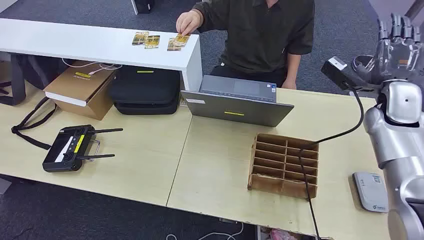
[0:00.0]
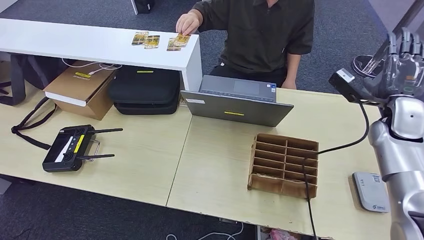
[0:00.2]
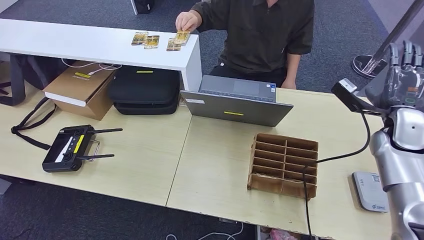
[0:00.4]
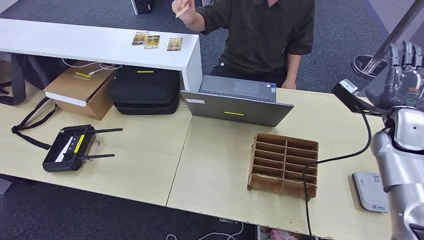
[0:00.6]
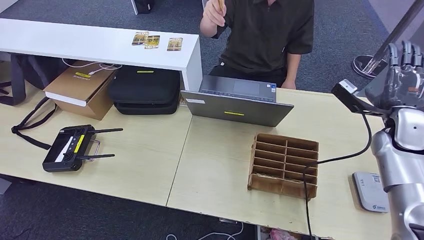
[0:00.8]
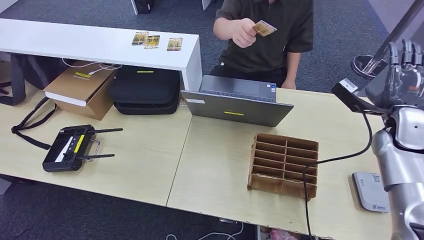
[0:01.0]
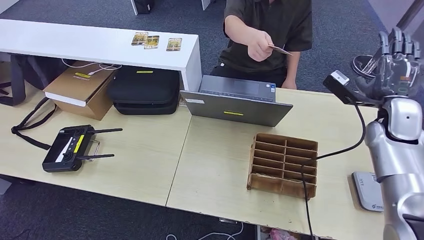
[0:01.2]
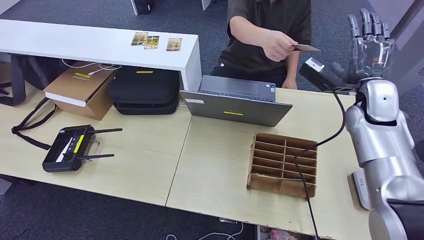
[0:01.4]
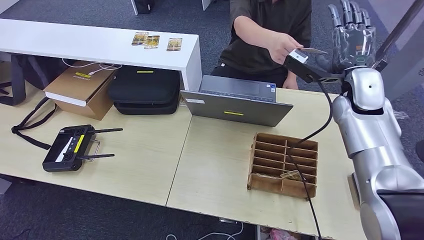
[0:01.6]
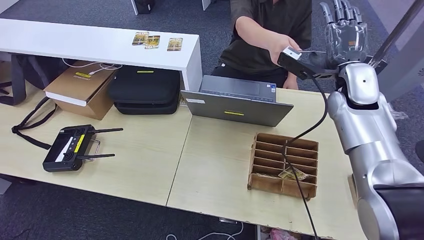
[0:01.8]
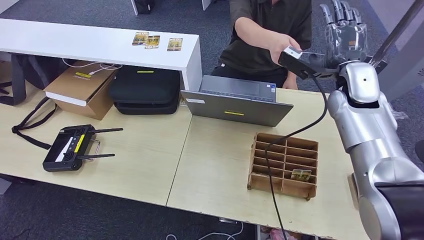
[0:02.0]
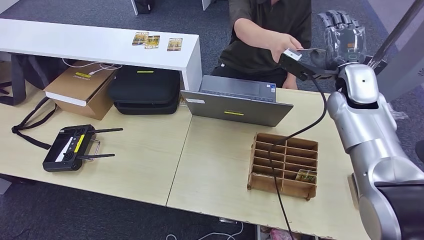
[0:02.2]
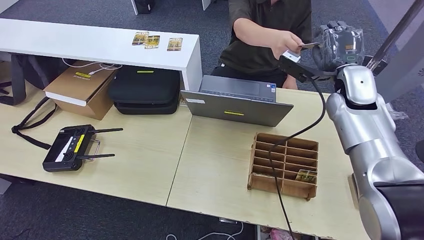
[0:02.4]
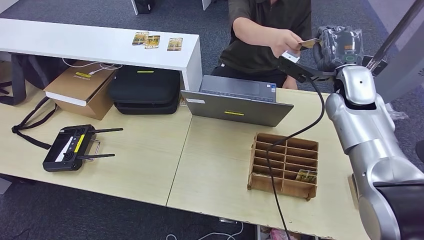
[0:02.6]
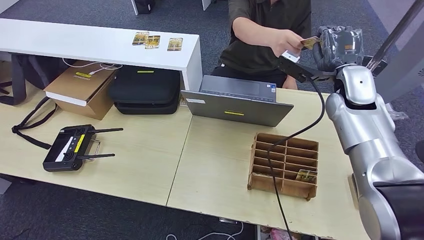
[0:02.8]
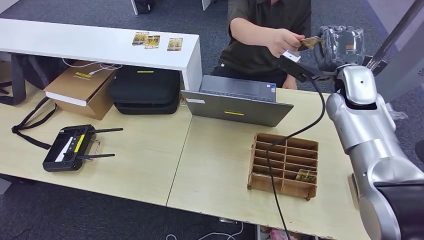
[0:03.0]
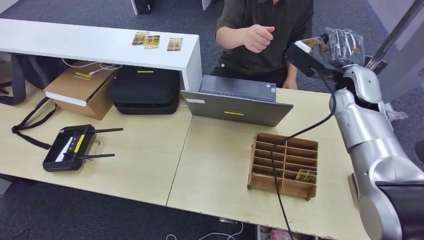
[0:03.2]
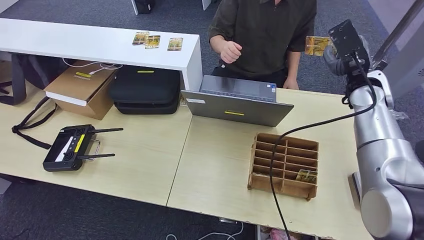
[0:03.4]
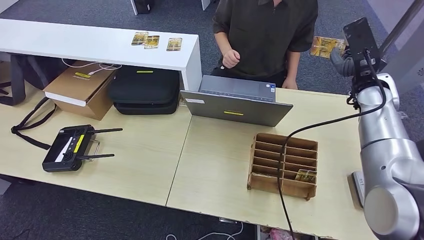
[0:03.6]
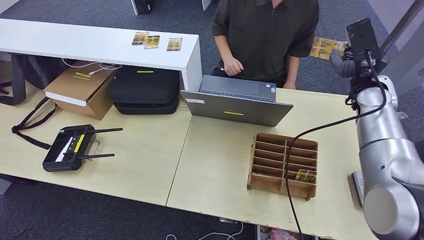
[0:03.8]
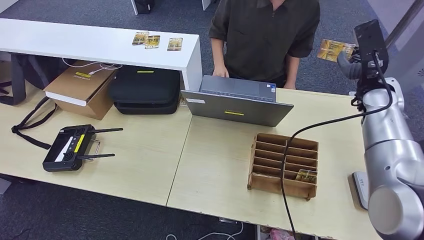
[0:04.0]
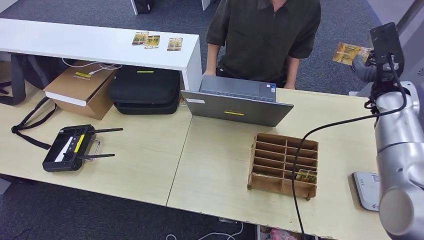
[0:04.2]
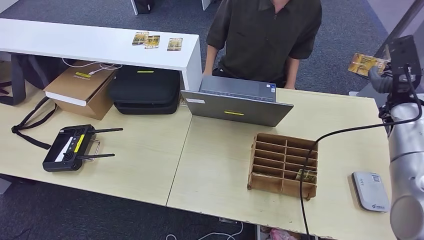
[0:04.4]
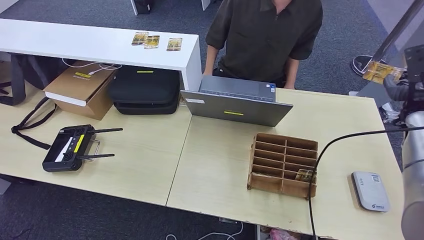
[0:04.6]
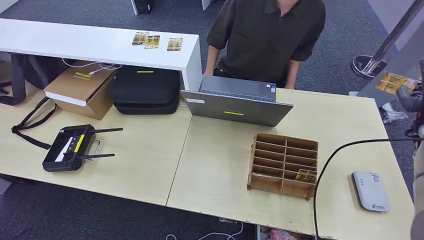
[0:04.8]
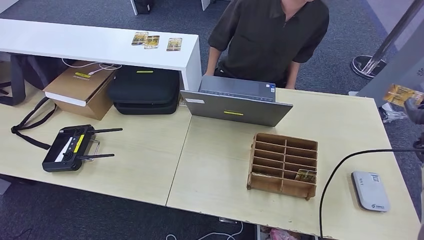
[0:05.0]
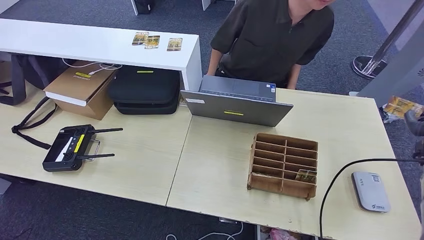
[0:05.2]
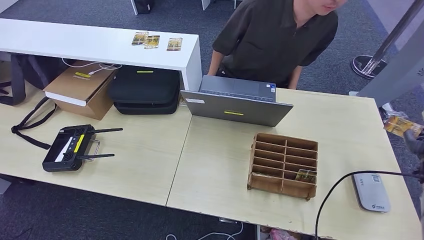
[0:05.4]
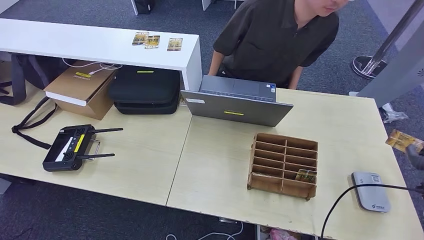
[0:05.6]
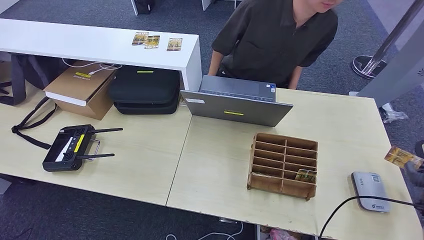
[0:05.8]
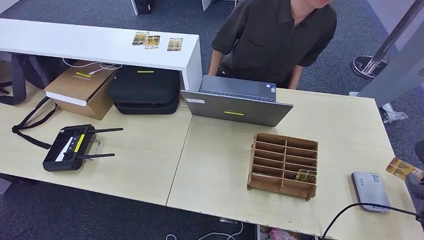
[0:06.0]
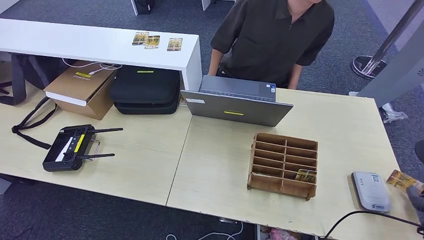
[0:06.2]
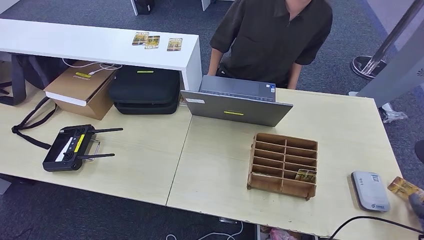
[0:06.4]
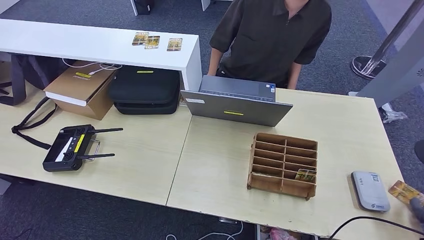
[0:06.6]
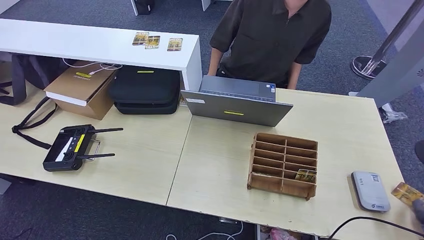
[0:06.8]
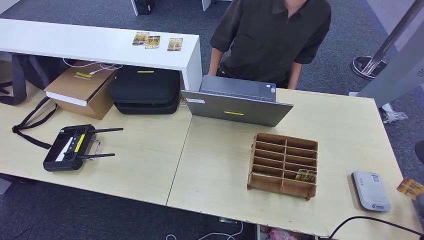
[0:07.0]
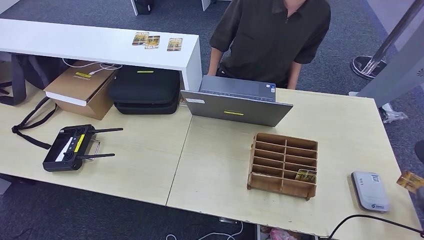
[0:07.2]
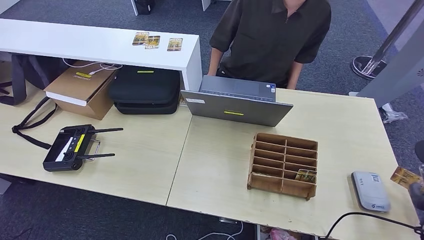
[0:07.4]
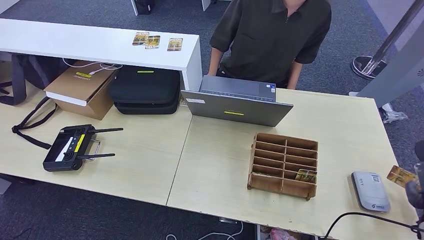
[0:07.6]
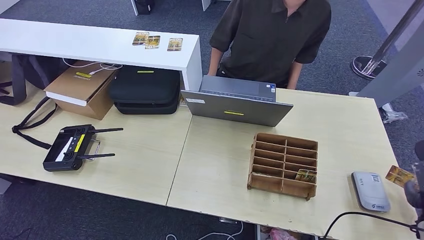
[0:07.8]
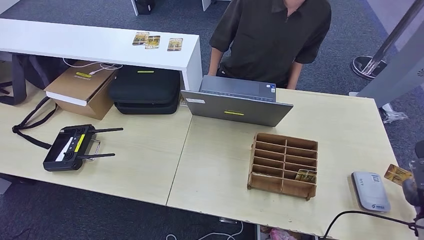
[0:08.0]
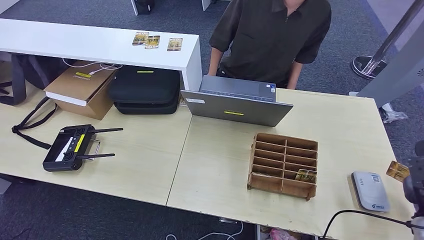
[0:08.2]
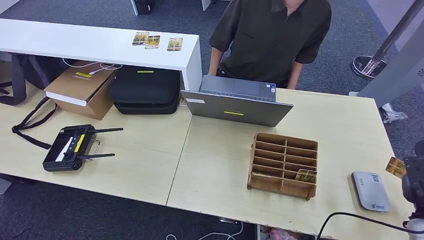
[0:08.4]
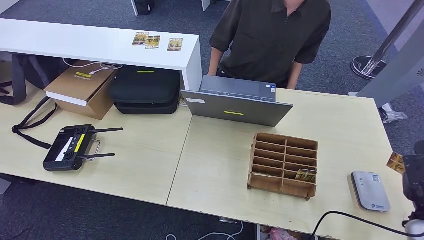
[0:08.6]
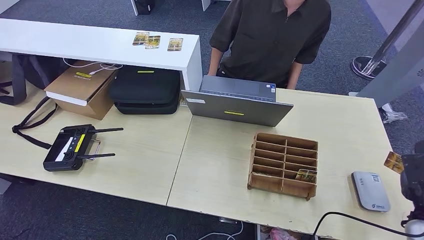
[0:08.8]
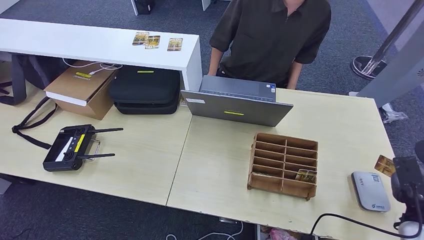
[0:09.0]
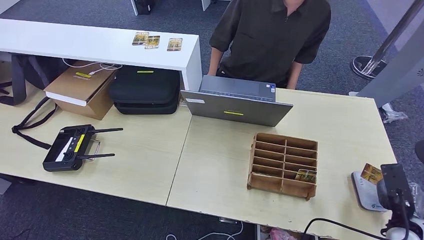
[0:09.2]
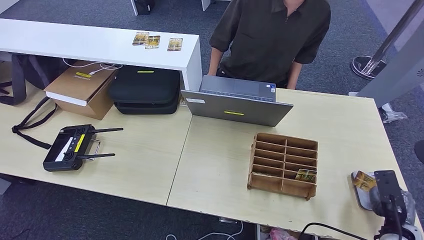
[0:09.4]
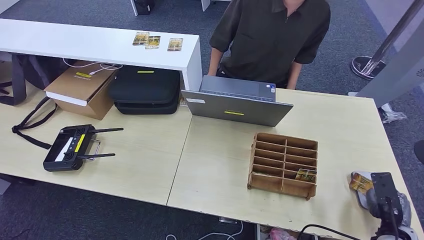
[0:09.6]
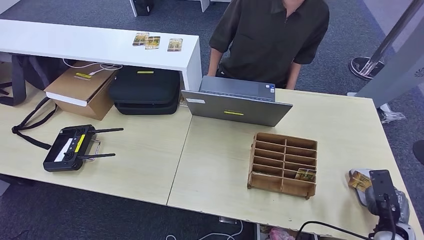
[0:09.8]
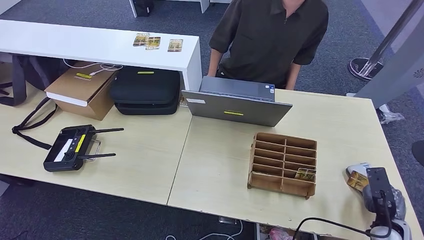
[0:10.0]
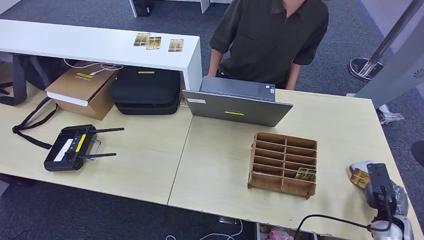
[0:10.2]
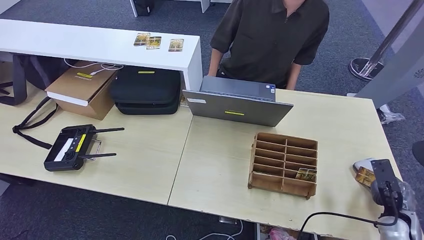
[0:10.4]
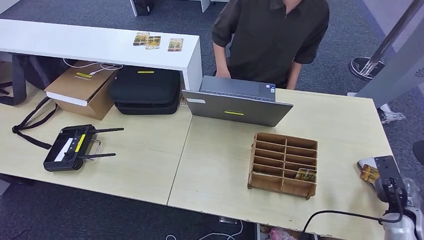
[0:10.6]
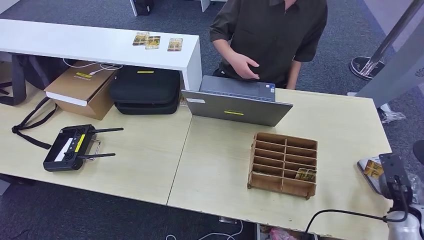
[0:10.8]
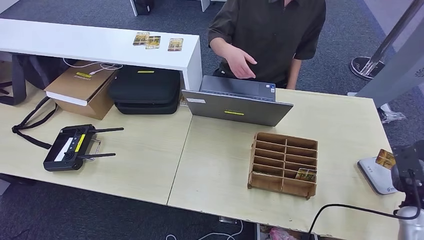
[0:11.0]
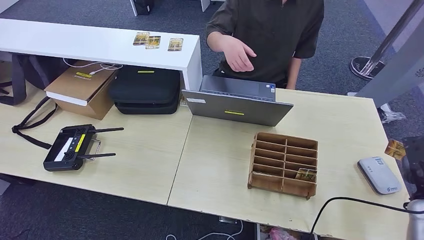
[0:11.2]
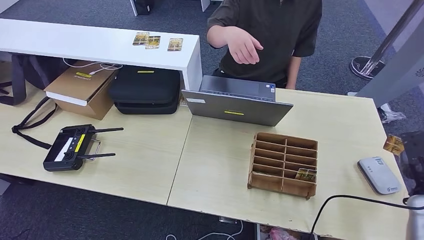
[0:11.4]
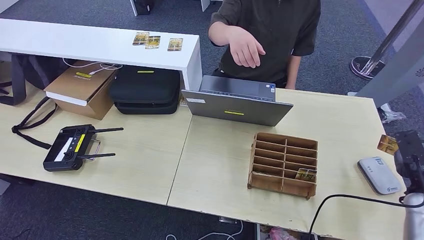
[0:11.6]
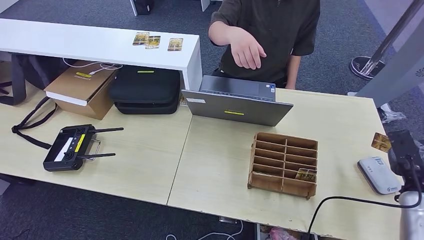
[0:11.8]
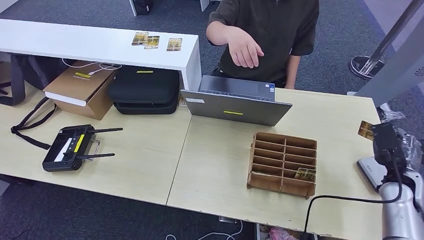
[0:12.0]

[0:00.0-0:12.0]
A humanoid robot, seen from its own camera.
Step, 0:00.0 to 0:03.0: Take the ID card from the person's hand.
Step, 0:03.2 to 0:10.6: Place the ID card on the card reader.
0:01.6 to 0:03.0: The hands stay close to where they were, moving slightly.
0:03.0 to 0:04.4: The right hand heads to the right, covering roughly 15 cm.
0:04.4 to 0:06.0: The right hand heads downward, backward and to the right, covering approximately 30 cm.
0:06.0 to 0:07.6: The hands stay close to where they were, moving slightly.
0:07.6 to 0:09.0: The right hand is displaced to the left by approximately 5 cm.
0:09.0 to 0:10.4: The right hand changes place by approximately 5 cm.
0:10.4 to 0:12.0: The right hand goes approximately 10 cm upward and forward.

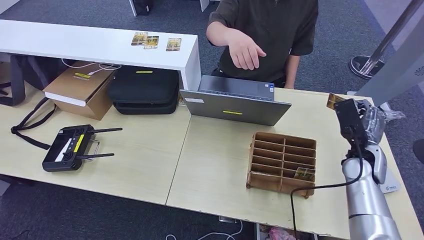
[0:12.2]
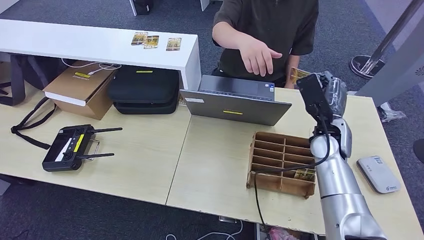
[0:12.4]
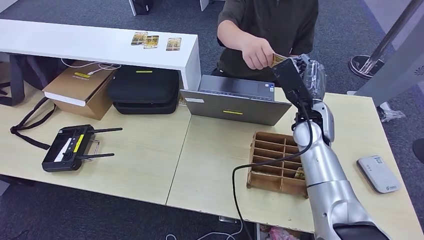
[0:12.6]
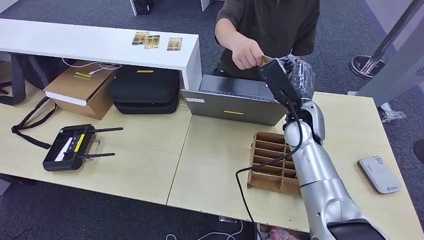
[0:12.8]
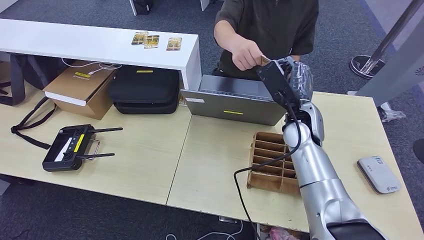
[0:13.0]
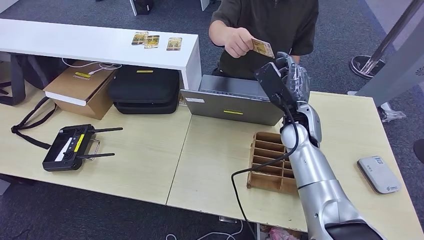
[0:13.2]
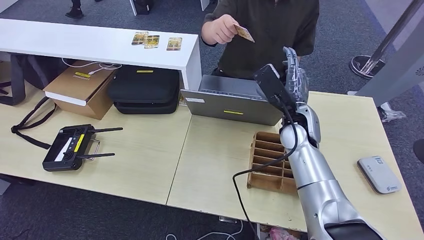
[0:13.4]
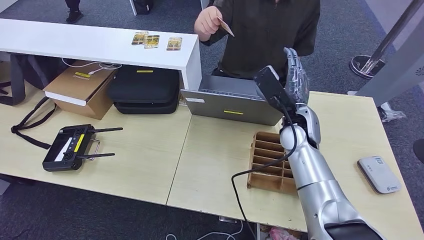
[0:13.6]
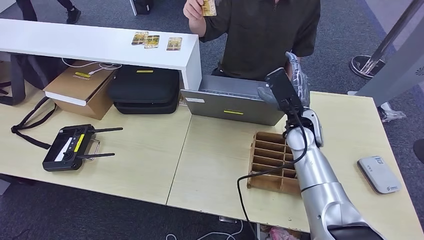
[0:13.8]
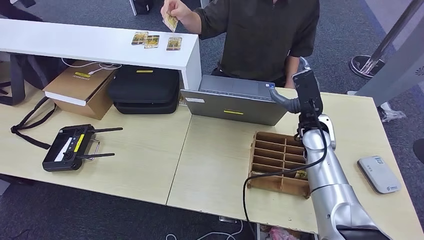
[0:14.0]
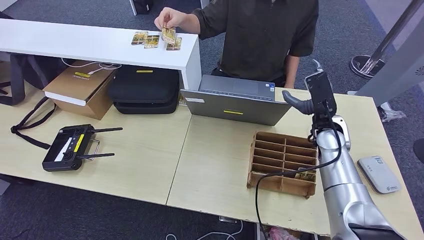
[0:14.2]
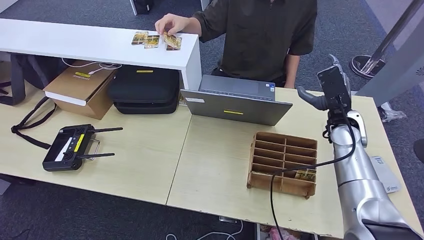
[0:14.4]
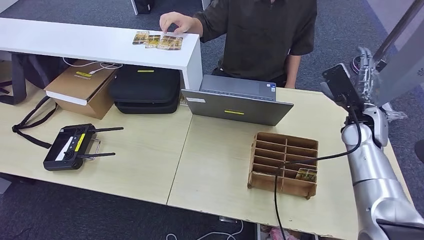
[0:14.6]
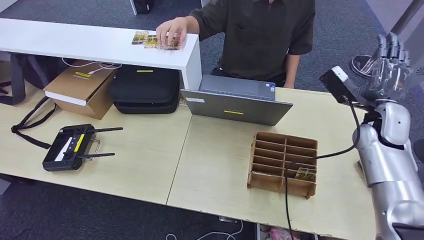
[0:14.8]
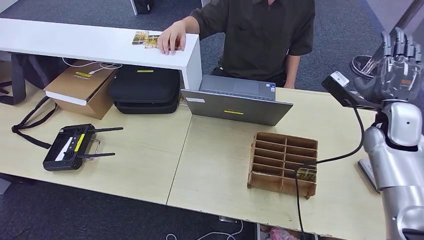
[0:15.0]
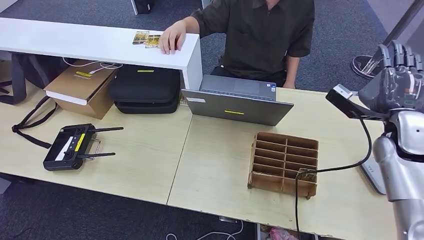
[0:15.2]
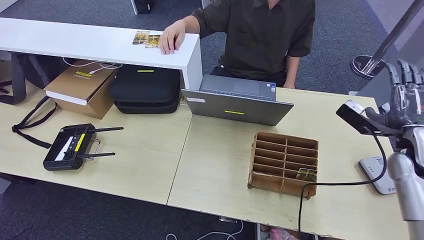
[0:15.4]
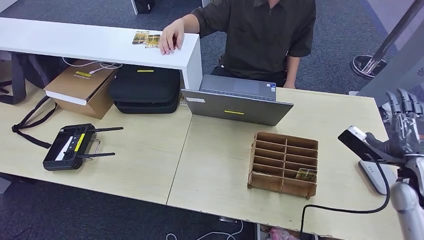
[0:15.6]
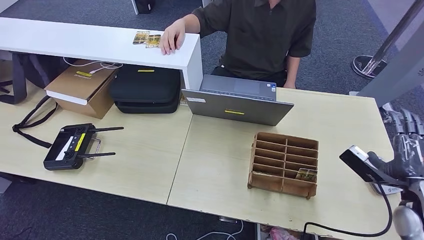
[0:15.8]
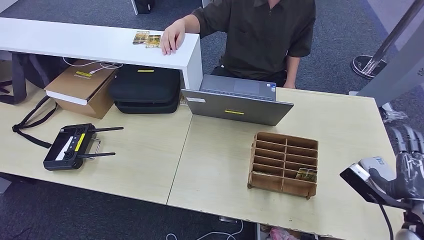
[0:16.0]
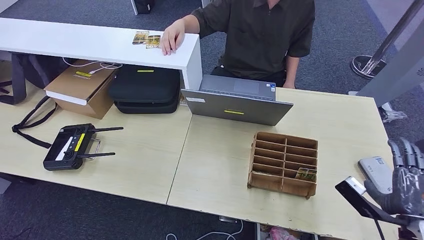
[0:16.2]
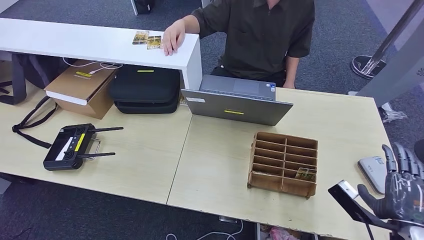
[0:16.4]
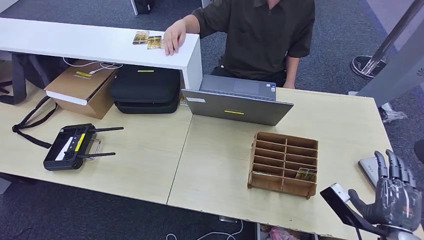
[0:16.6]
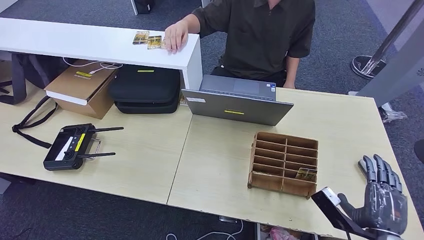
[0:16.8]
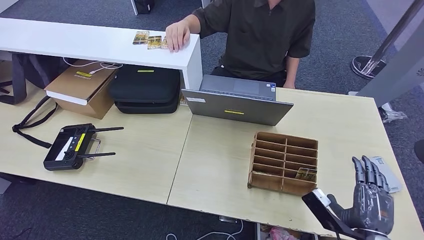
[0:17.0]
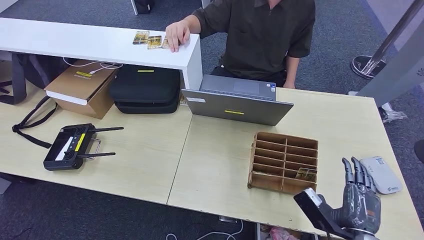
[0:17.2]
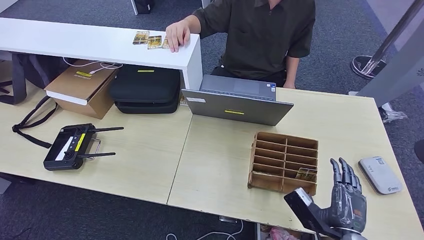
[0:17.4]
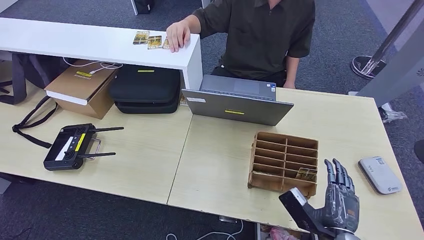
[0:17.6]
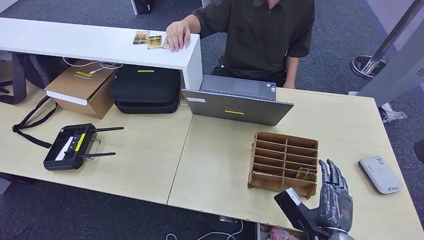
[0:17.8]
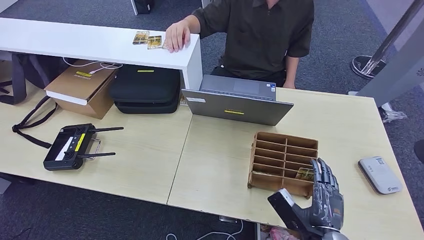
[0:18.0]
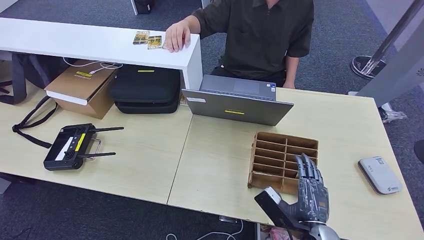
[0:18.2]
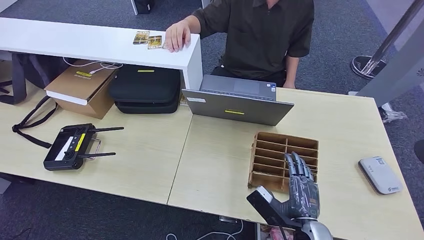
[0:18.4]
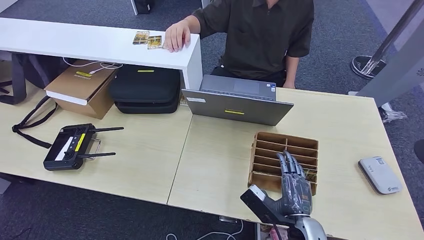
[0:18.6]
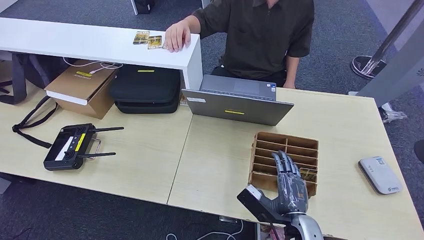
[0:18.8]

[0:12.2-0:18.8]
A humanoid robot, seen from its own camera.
Step, 0:12.2 to 0:14.4: Hand the ID card to the person.
0:12.2 to 0:13.8: The right hand goes about 15 cm to the left.
0:13.8 to 0:15.4: The right hand moves to the right, approximately 25 cm.
0:15.4 to 0:17.2: The right hand heads backward, downward and to the left, covering roughly 25 cm.
0:17.2 to 0:18.8: The right hand travels to the left by some 10 cm.
